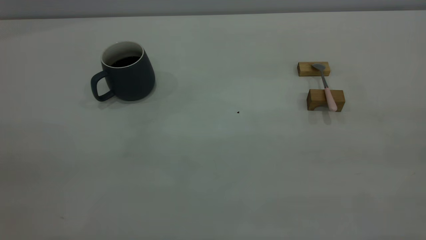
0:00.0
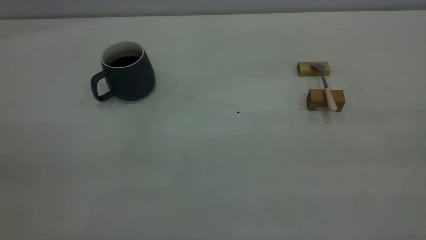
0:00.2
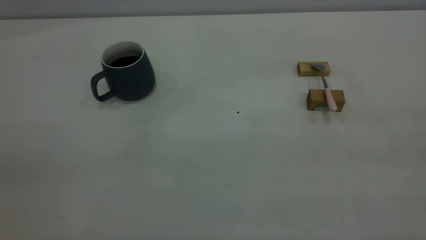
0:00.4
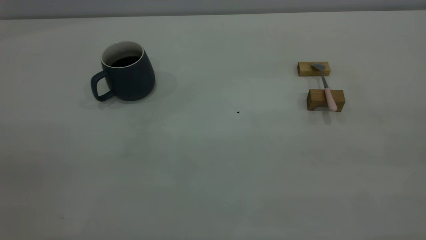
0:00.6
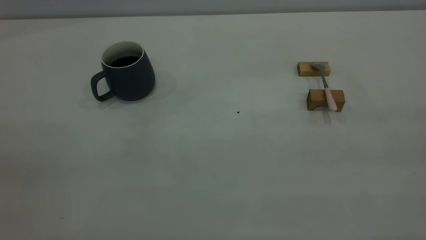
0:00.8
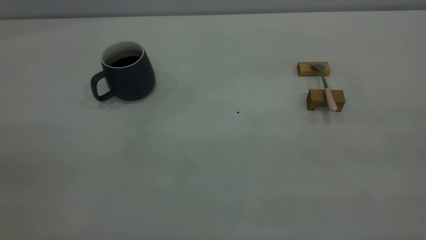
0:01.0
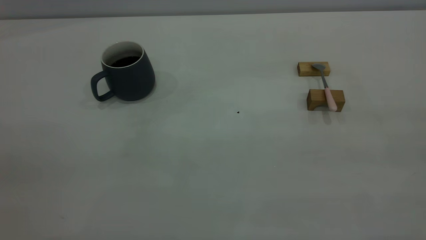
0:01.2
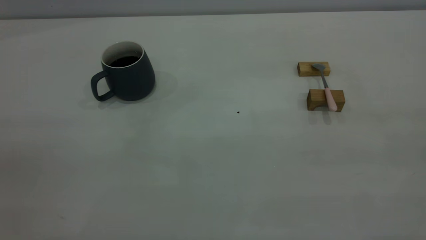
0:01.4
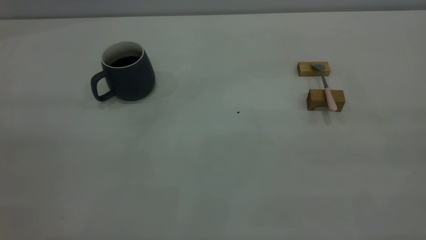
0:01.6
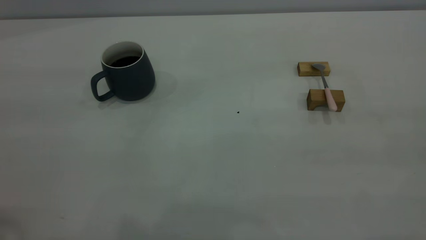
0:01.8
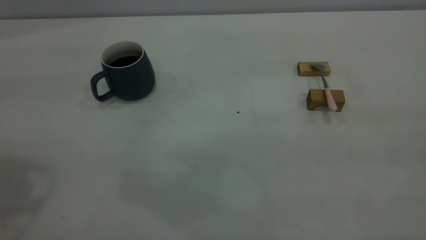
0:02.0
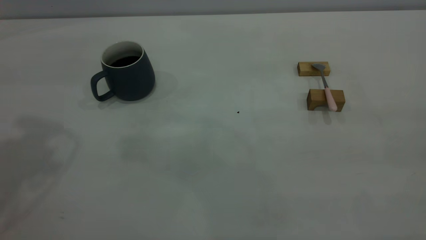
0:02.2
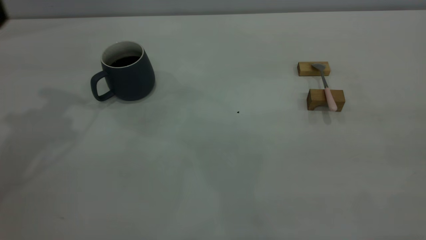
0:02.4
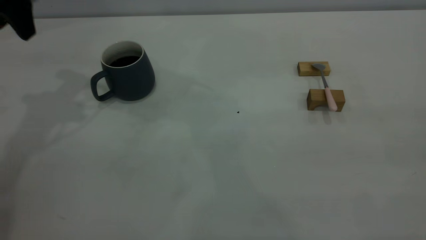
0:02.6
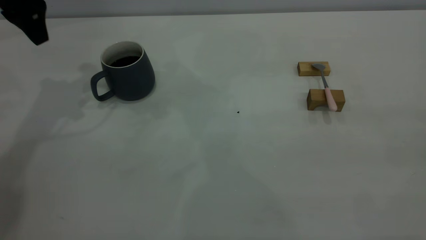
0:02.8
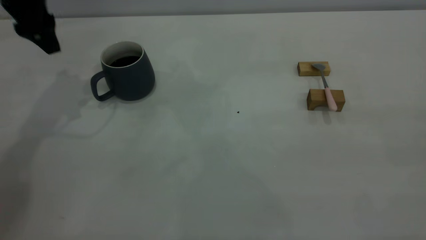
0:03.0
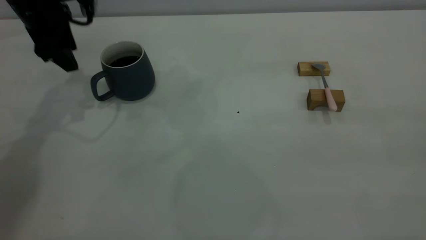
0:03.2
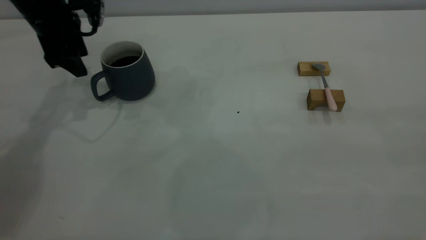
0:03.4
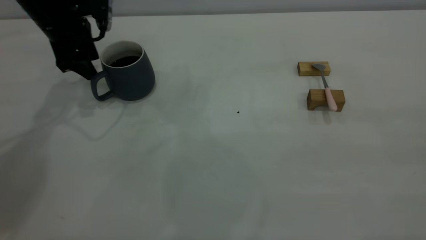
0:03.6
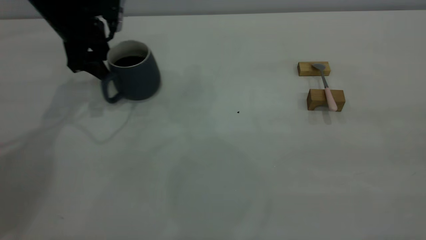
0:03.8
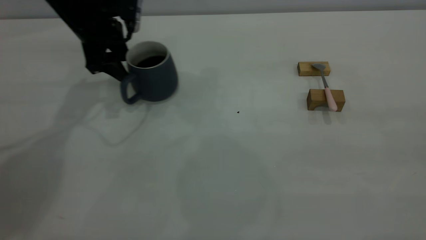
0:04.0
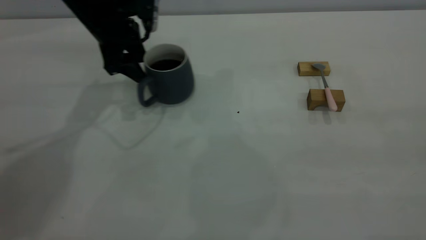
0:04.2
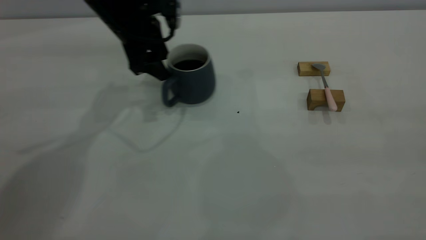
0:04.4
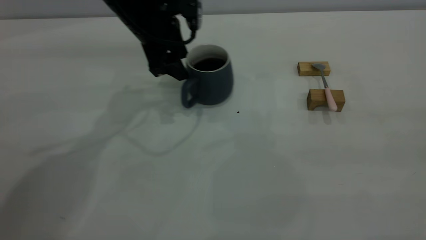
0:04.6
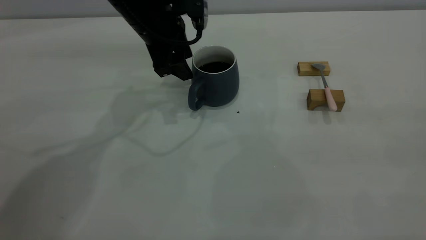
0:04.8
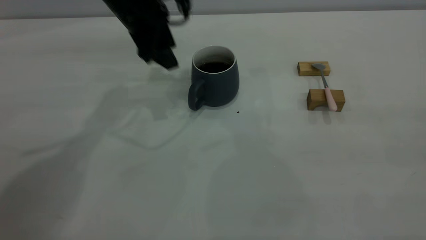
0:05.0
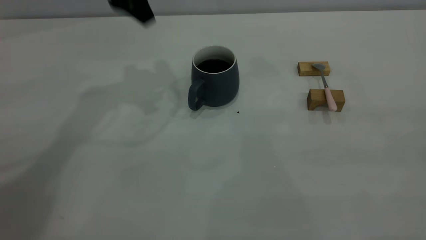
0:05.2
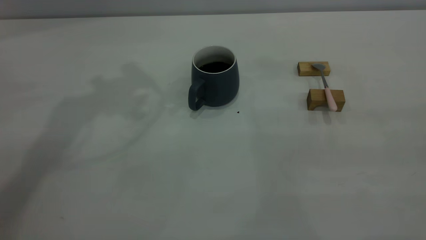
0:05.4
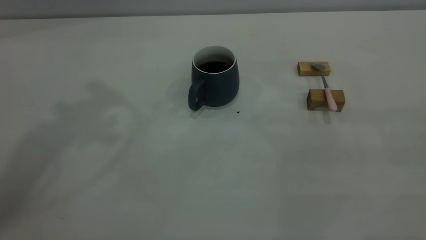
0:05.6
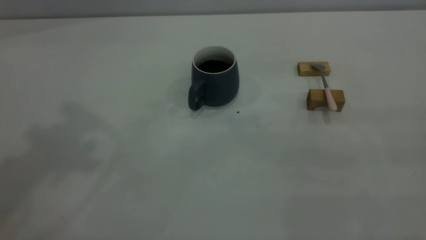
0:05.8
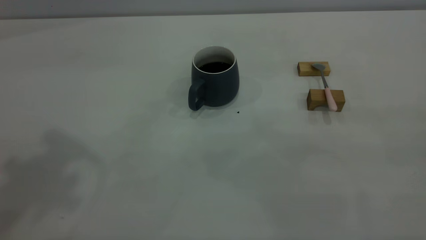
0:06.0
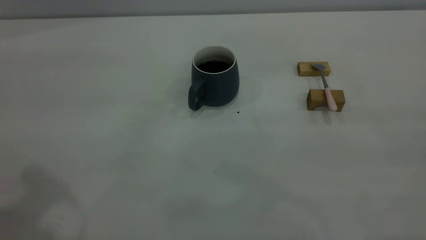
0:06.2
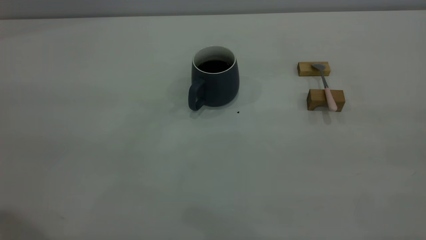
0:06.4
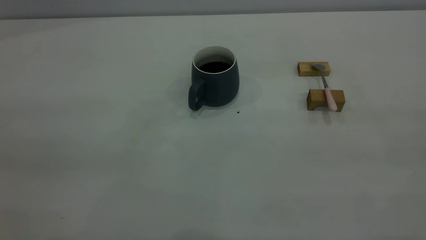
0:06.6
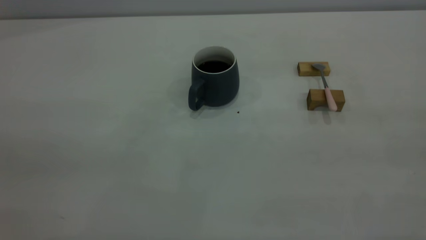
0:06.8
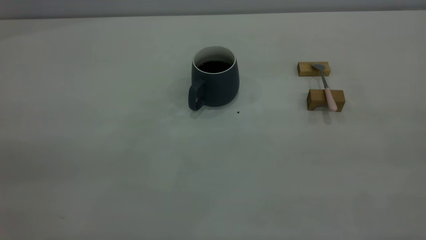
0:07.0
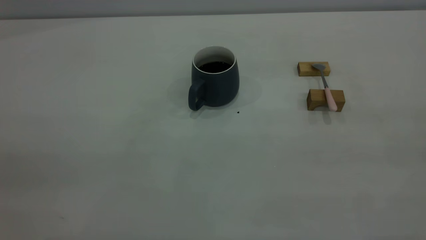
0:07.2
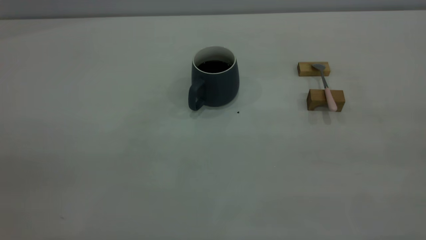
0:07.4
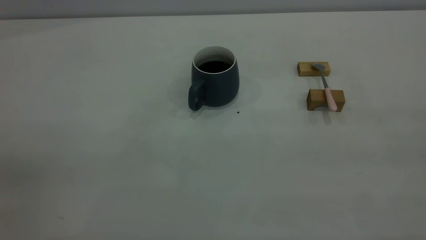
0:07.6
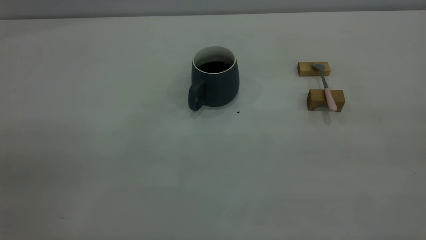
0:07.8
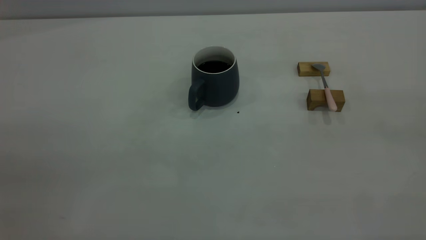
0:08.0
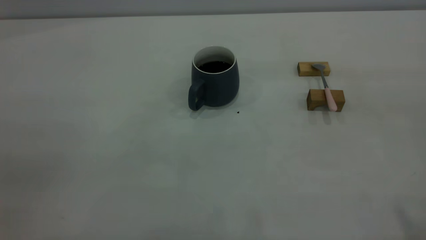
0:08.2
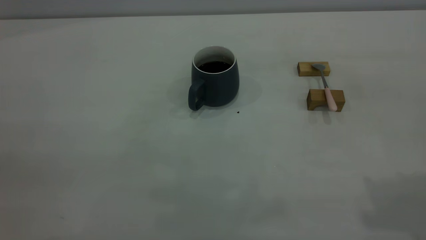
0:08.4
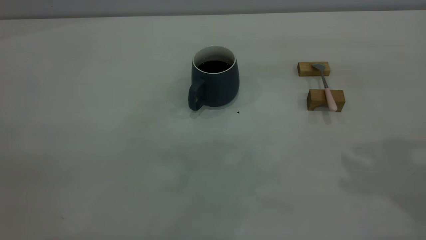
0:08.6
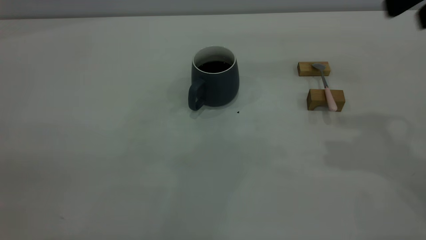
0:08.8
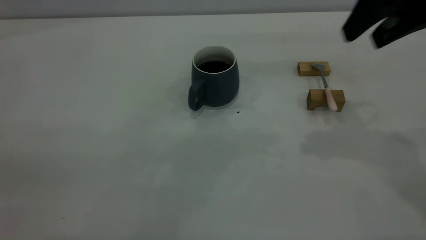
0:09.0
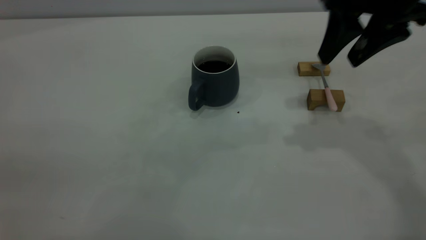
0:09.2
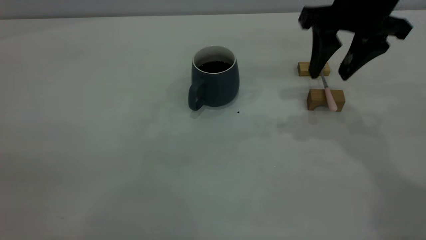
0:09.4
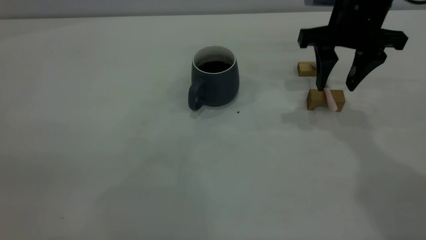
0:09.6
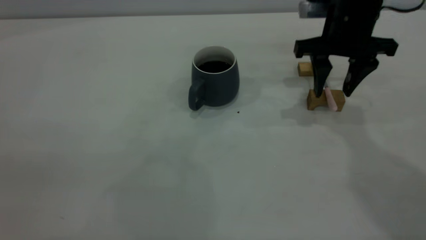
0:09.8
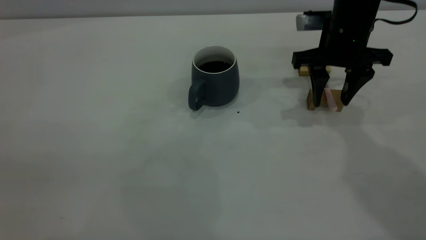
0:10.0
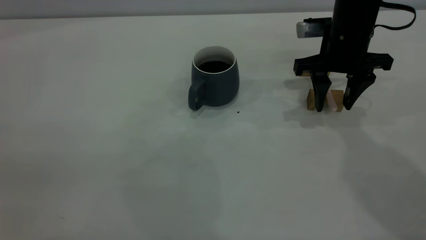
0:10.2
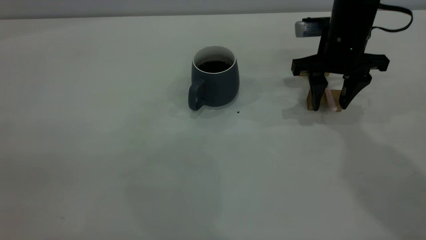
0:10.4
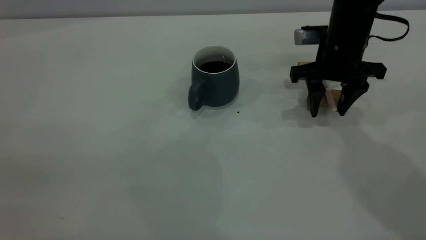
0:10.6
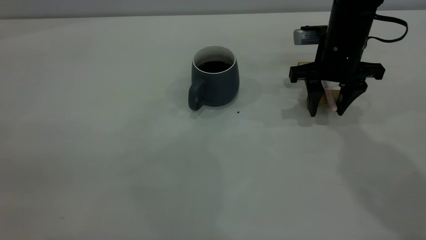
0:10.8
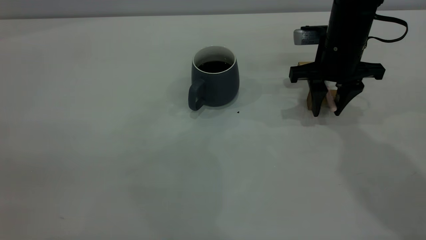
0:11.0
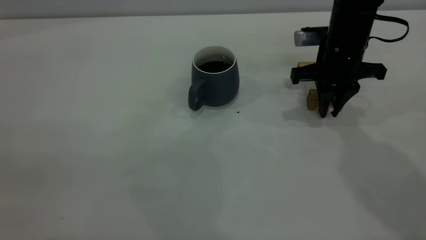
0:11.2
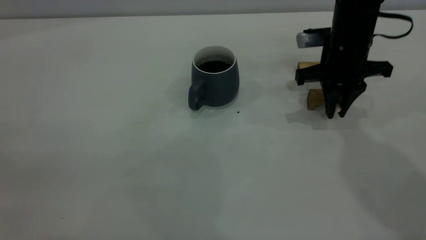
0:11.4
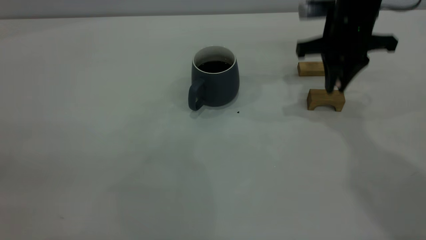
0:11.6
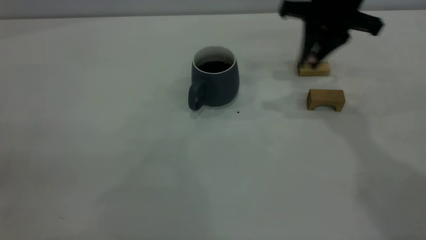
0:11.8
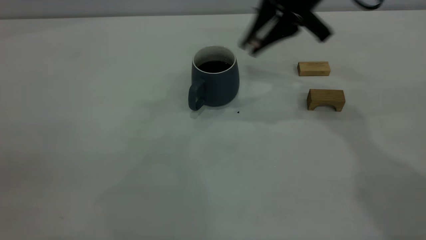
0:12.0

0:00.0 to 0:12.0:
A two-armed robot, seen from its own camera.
Step, 0:00.0 to 0:05.0: Move the cup with coffee to the center of view.
Step, 0:05.2 to 0:11.6: Pick up the spoon.
0:01.6 to 0:03.0: The left gripper goes some 40 cm forward and downward.
0:03.0 to 0:04.4: The left gripper heads to the right and downward, covering some 15 cm.
0:04.4 to 0:06.0: The left gripper travels upward and backward by approximately 35 cm.
0:07.6 to 0:09.0: The right gripper heads forward, covering roughly 30 cm, and opens up.
0:09.0 to 0:10.4: The right gripper moves downward and forward, about 20 cm.
0:10.4 to 0:12.0: The right gripper moves upward and to the left, roughly 10 cm, and closes up.

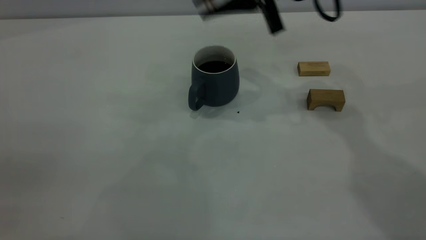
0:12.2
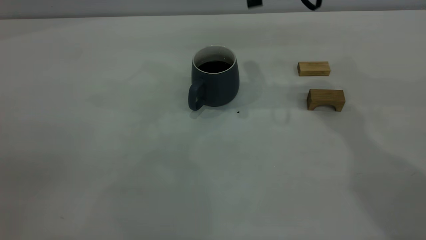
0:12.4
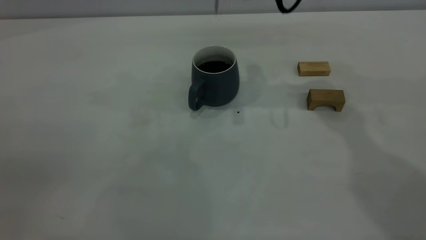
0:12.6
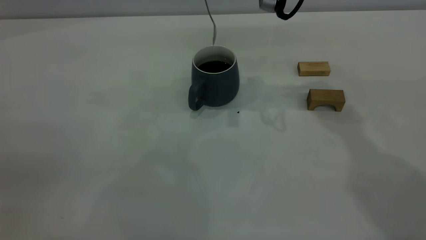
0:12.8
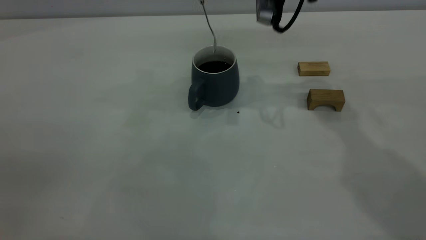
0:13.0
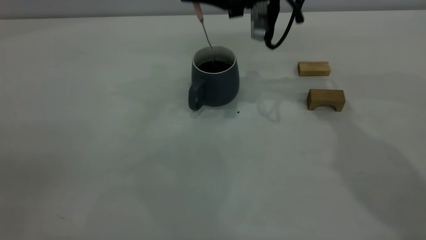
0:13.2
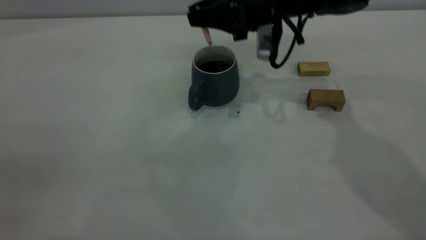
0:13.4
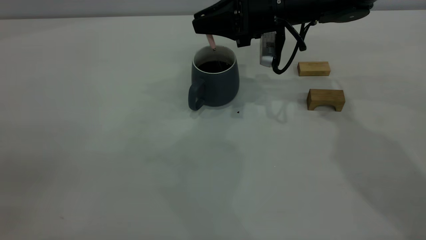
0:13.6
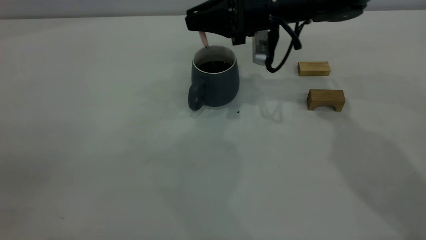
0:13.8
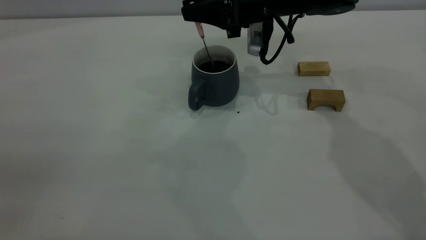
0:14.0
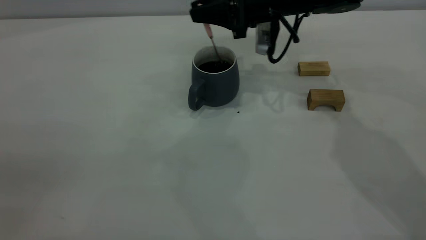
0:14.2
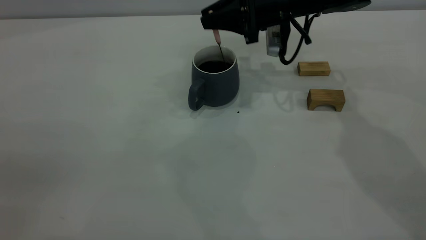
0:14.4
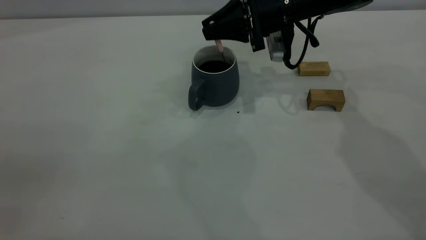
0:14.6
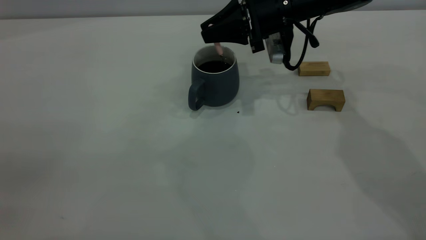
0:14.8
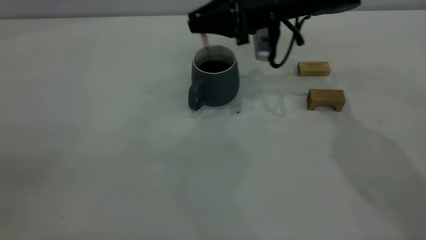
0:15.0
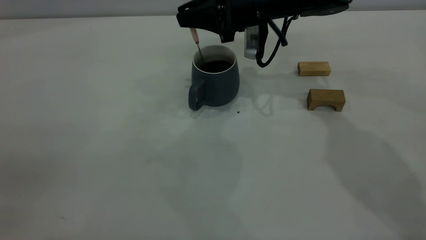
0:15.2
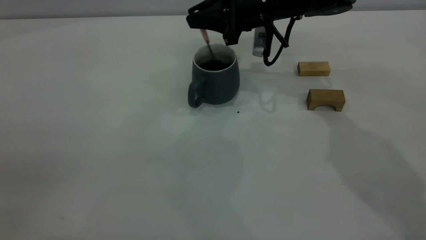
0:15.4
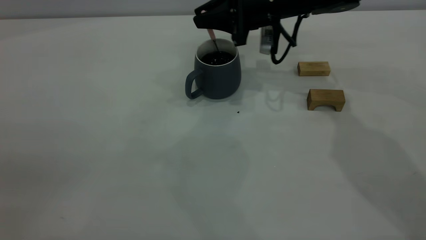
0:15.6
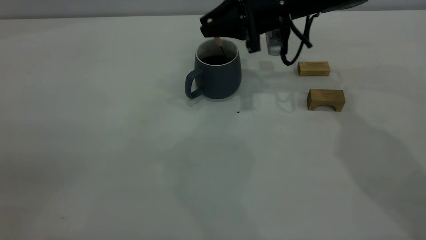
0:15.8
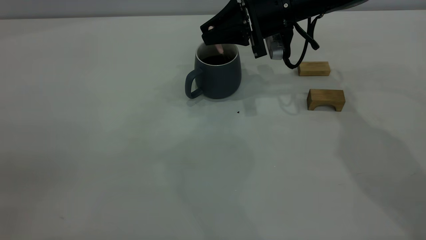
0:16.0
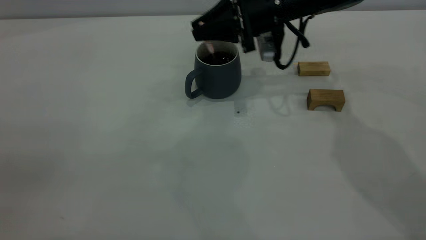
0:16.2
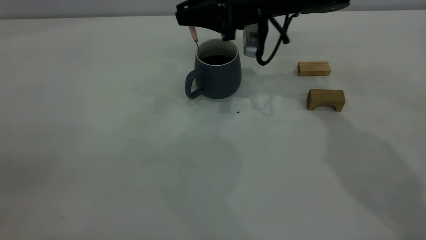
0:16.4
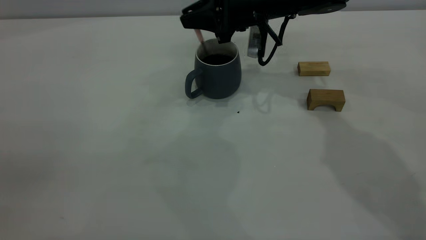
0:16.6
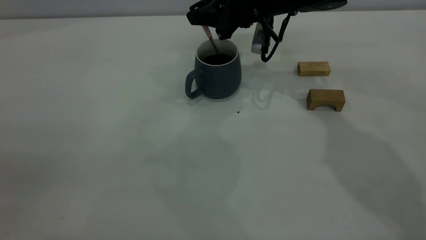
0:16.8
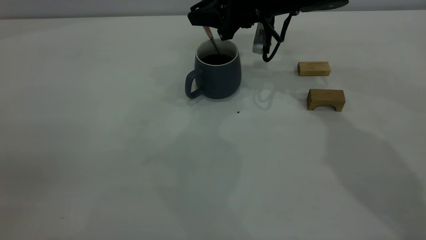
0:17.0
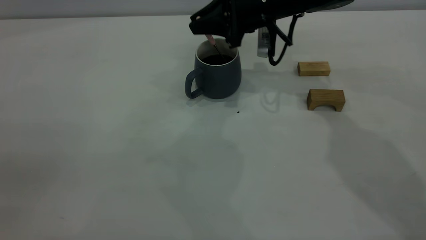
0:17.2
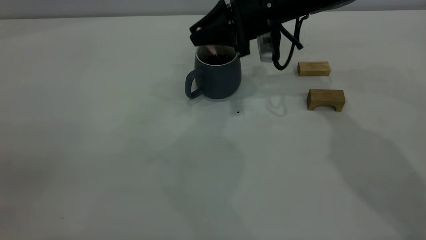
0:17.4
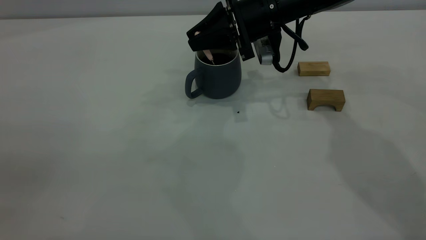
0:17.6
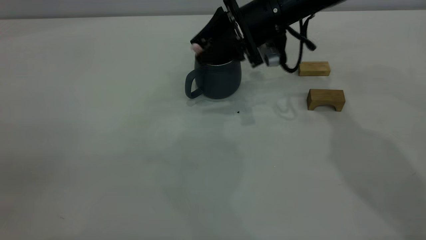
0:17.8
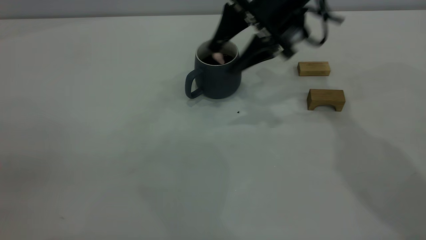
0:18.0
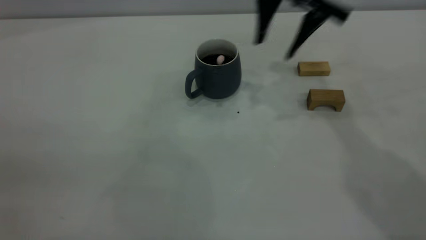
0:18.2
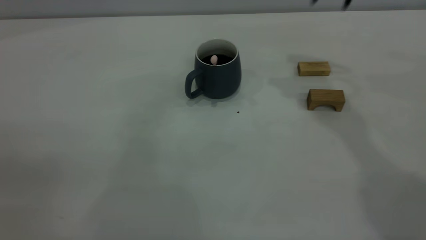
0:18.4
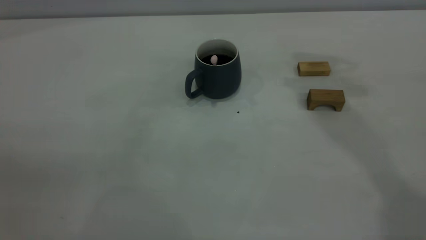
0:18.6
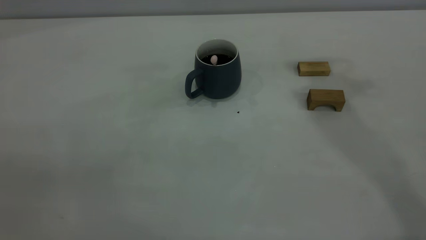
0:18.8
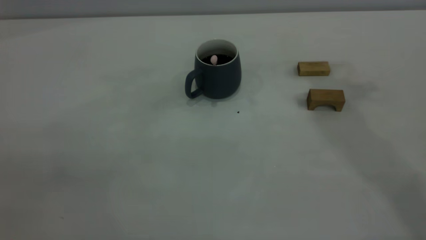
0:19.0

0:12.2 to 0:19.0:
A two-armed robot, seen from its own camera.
Step, 0:12.2 to 0:18.0: Stir the coffee in the cup.
0:12.2 to 0:13.6: The right gripper is displaced downward by some 10 cm.
0:13.6 to 0:17.6: There are only small adjustments of the grippers.
0:17.6 to 0:19.0: The right gripper travels upward by approximately 35 cm, and opens, then closes again.
